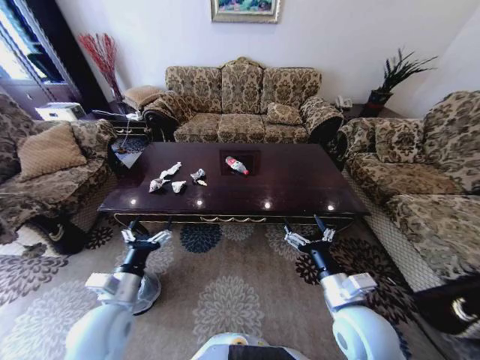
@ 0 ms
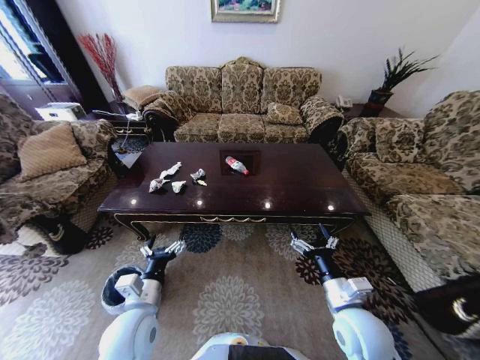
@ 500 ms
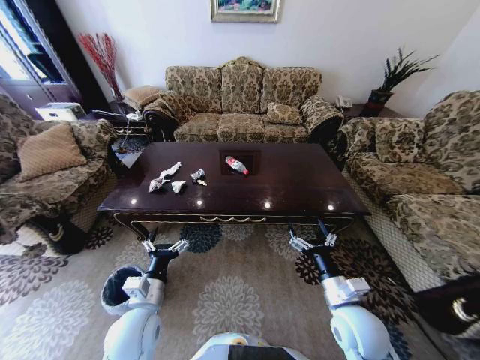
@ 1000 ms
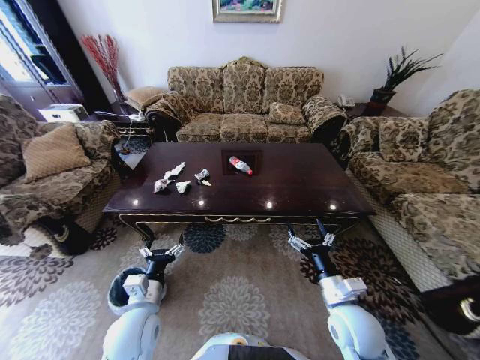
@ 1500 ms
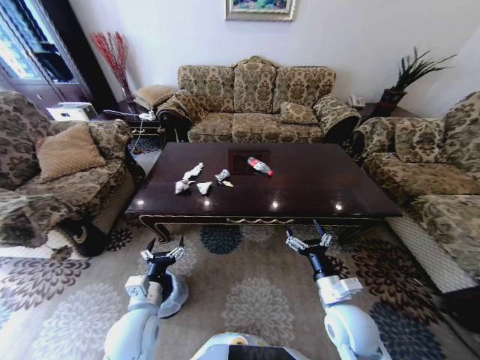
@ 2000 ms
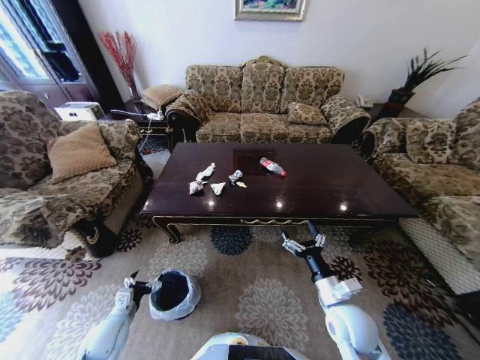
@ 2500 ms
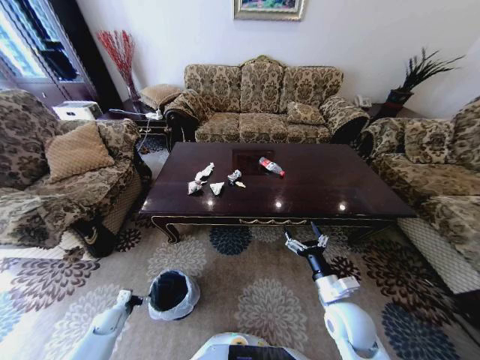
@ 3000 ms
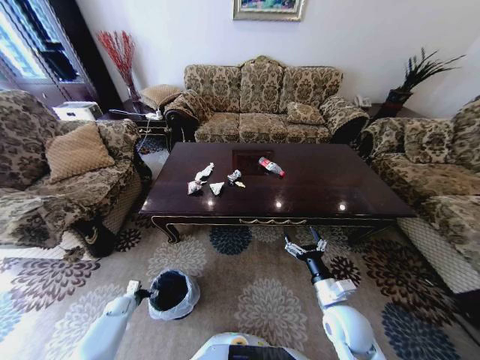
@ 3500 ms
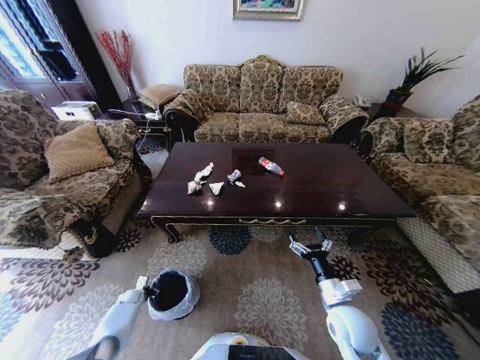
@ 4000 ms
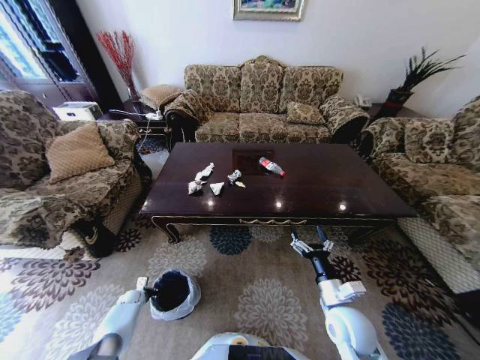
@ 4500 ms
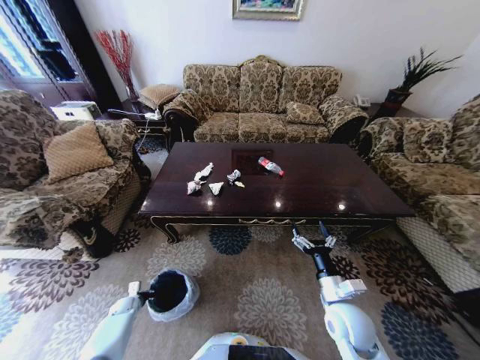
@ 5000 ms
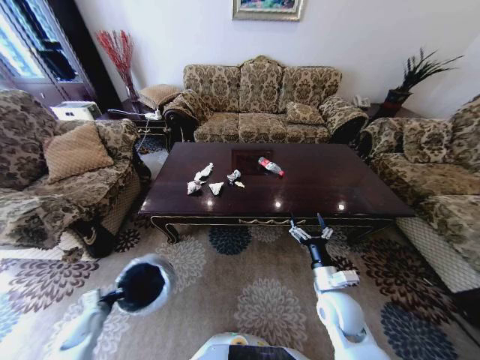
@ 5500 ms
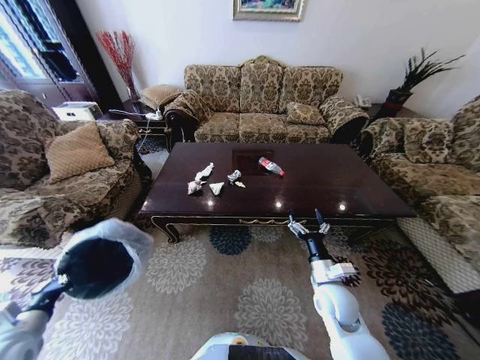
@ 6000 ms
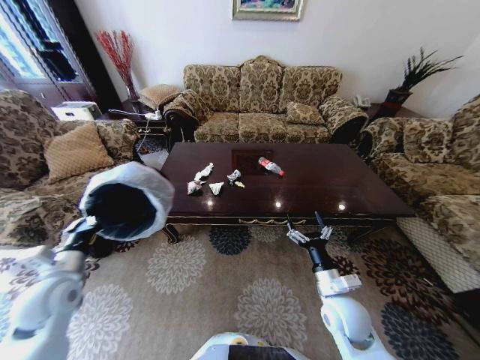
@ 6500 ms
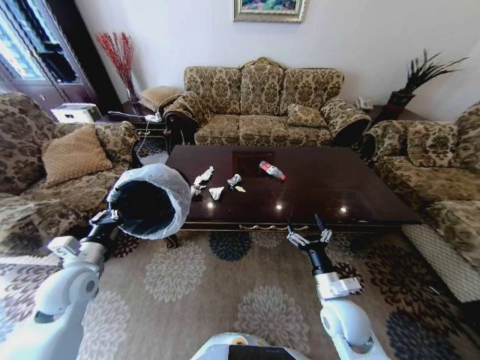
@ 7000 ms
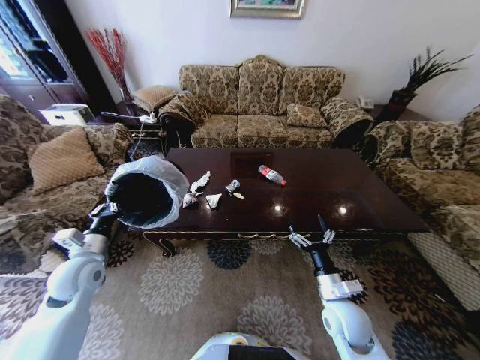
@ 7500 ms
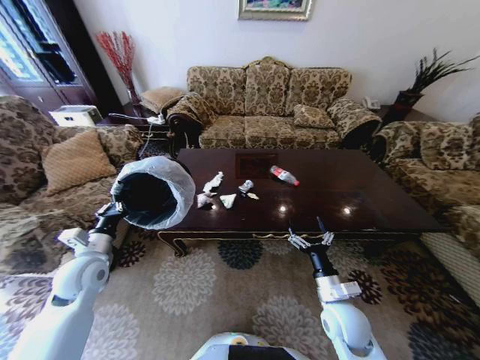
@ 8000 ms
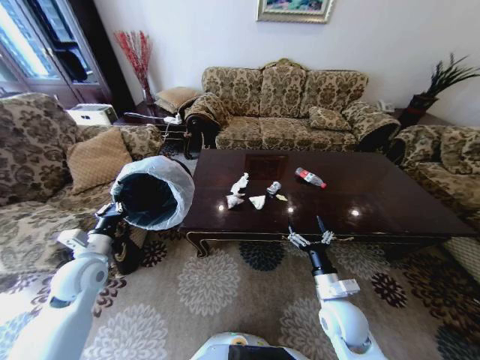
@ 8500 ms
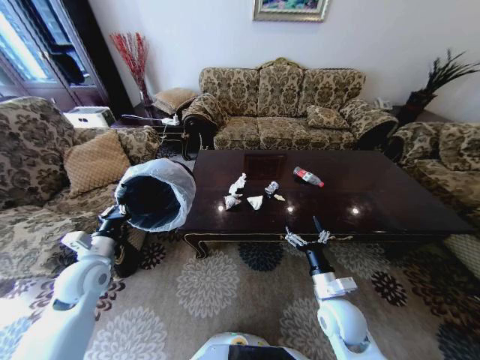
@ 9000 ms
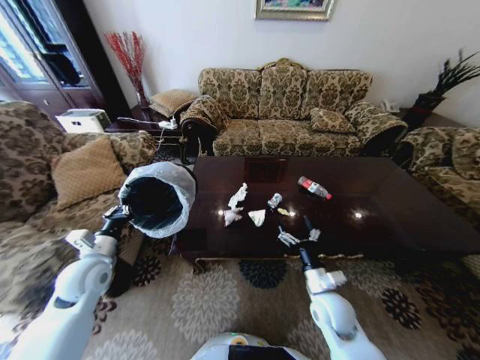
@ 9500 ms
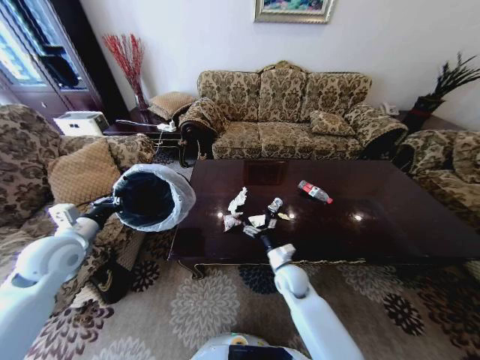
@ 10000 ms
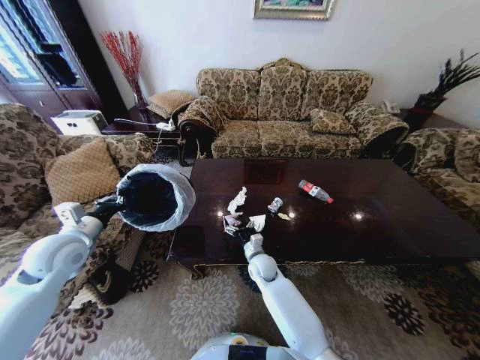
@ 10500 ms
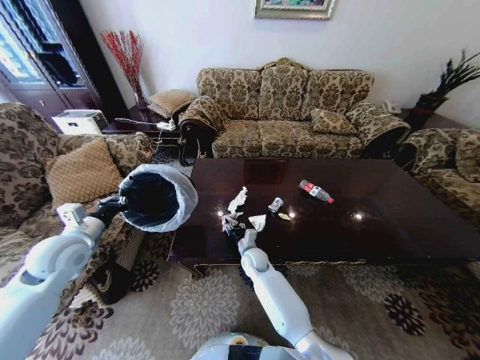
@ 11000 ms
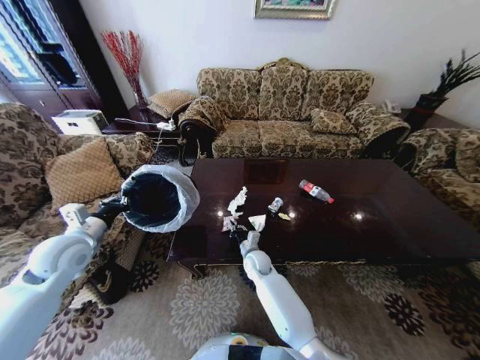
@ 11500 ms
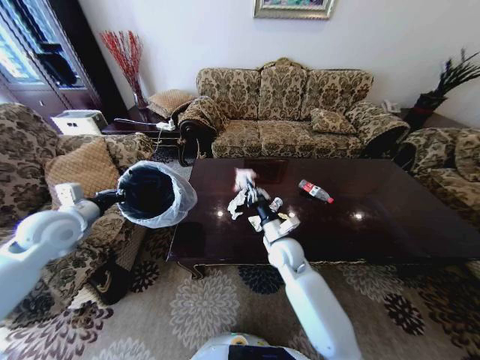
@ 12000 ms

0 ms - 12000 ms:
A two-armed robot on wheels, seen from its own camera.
Task of the whole recording: Move to the front of the table and place the trash on the table into the trash bin.
2000 ms - 4000 ms: The left gripper moves downward, to the left and forward, approximately 40 cm, and closes its fingers.
4000 ms - 6000 ms: The left gripper is displaced upward and backward by some 40 cm, and closes up. The right gripper ends up about 5 cm from where it was.
6000 ms - 8000 ms: The left gripper moves forward and to the right, about 20 cm.
8000 ms - 10000 ms: The right gripper travels forward and to the left by approximately 15 cm; the left gripper goes about 5 cm upward.
10000 ms - 12000 ms: The right gripper heads upward, covering some 10 cm, and closes up; the left gripper ends up about 5 cm from where it was.

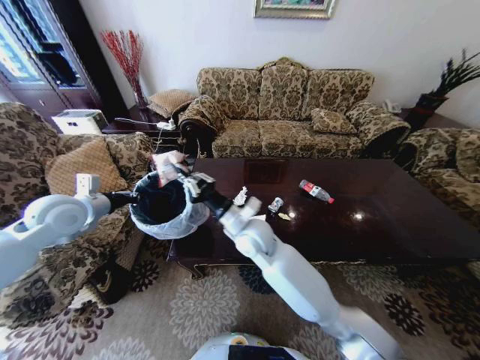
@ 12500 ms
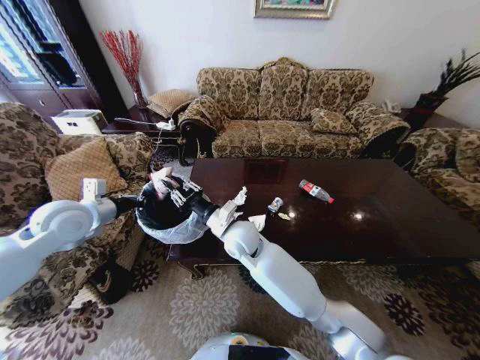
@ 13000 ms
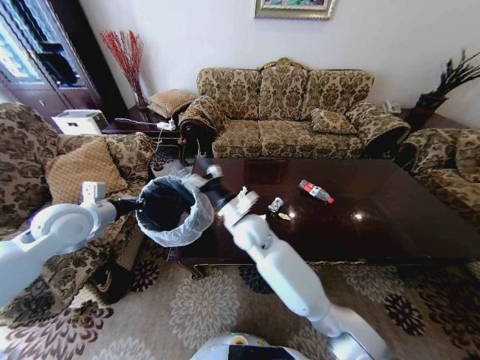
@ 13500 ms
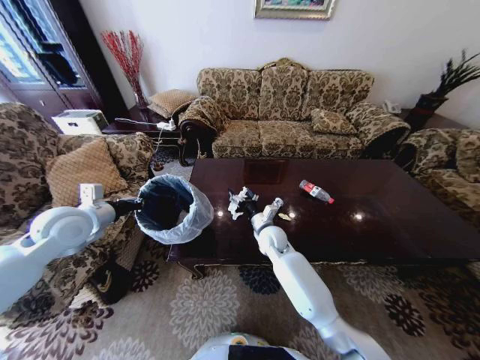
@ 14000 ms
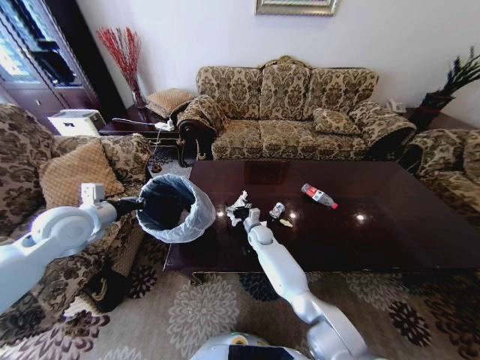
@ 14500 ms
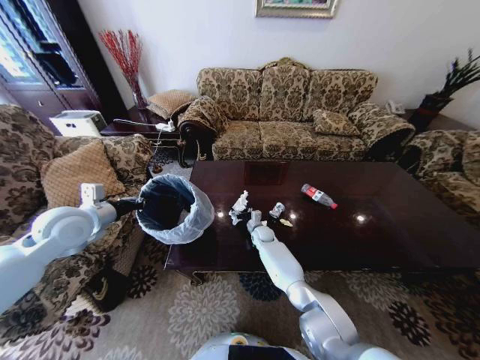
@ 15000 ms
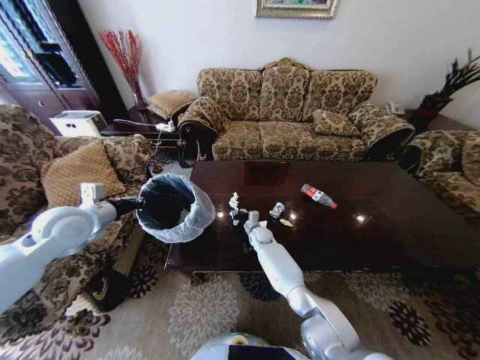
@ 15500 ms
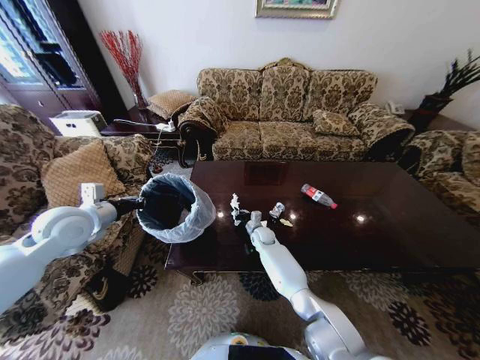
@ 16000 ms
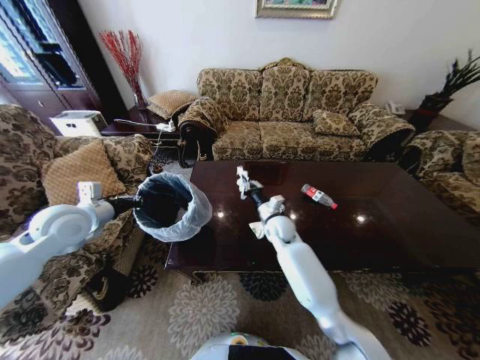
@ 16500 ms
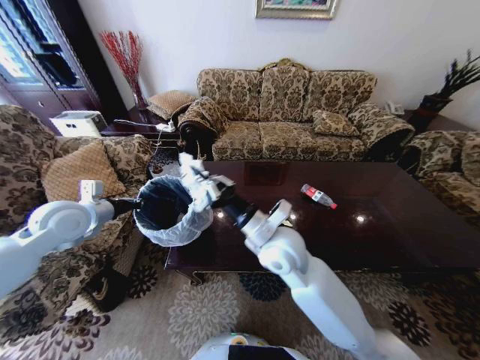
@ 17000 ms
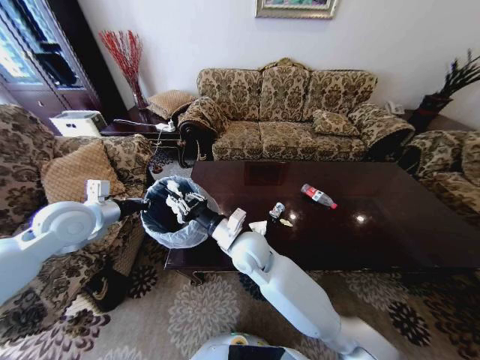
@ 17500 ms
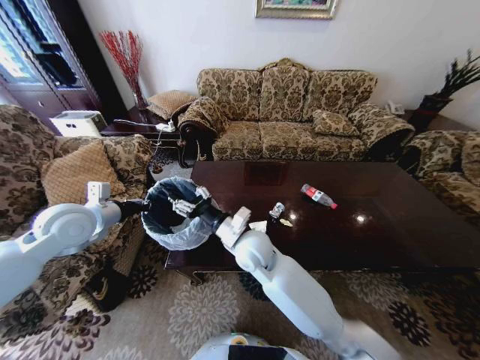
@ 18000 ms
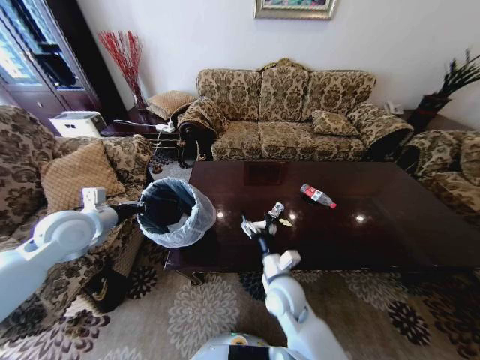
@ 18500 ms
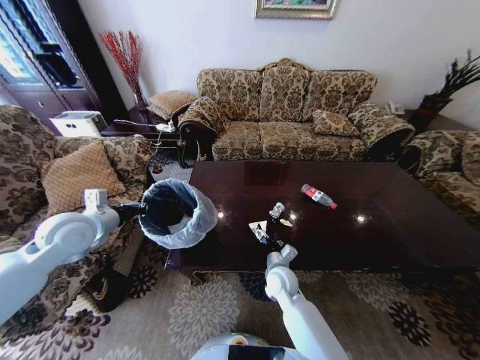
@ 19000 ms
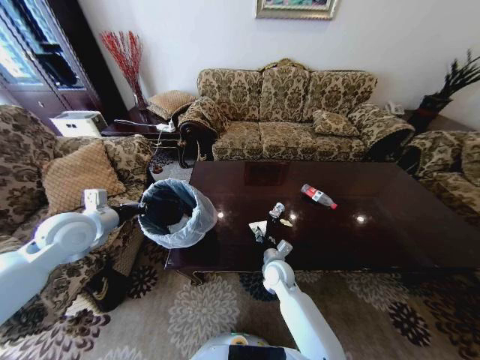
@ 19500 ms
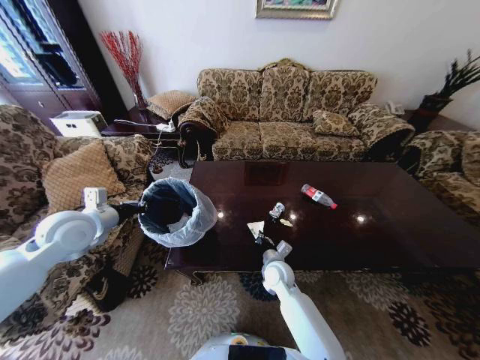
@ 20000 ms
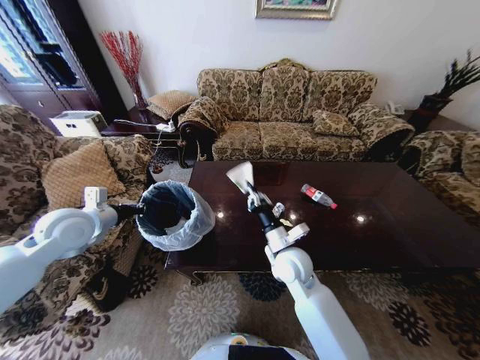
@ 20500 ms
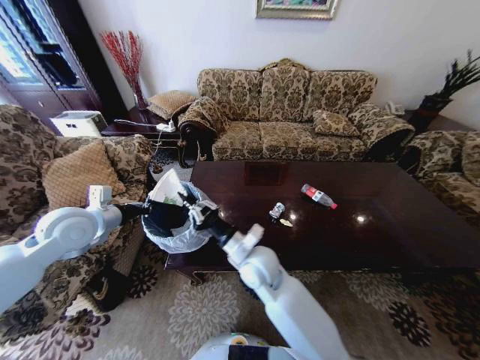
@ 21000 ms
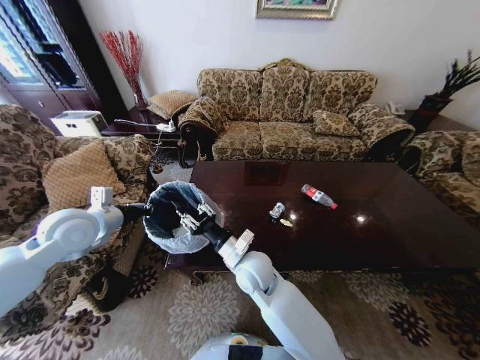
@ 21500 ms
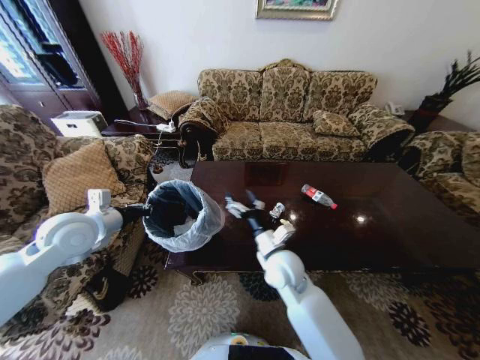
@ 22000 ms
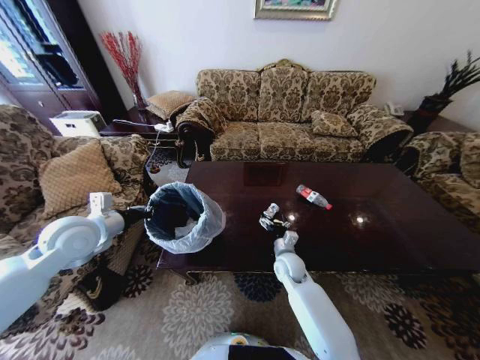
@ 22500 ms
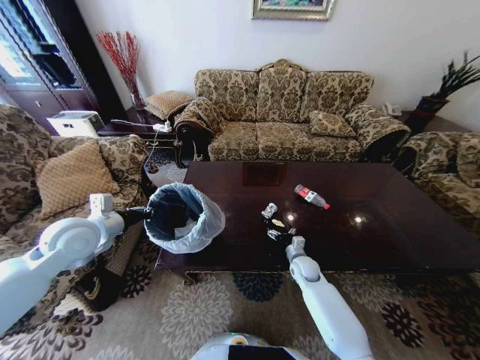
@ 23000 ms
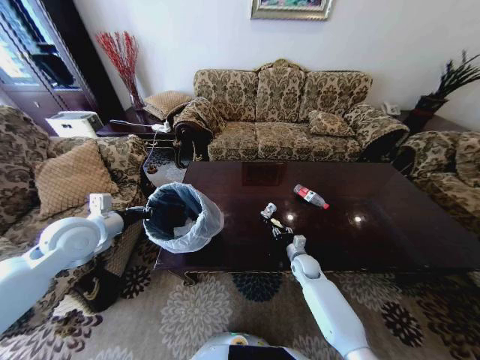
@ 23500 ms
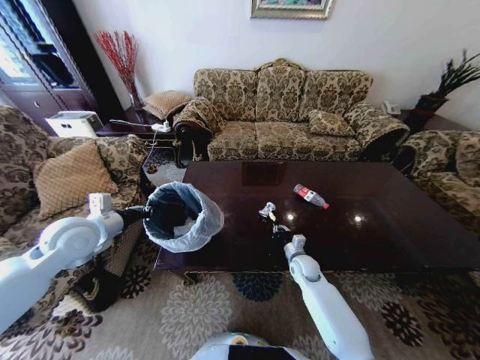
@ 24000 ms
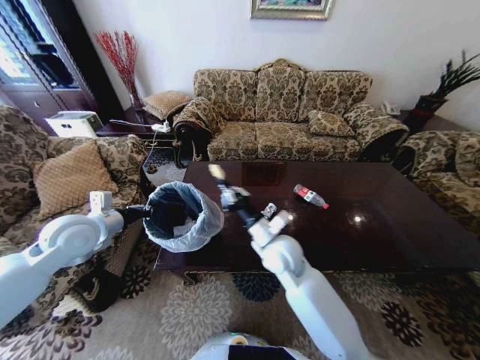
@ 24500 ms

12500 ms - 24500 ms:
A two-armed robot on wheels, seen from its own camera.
Task of the whole recording: Move to the front of the table and place the trash on the table into the trash bin.
12500 ms - 14500 ms: The right gripper goes some 25 cm downward and forward, and opens its fingers.
14500 ms - 16500 ms: The right gripper heads upward and to the right, covering about 15 cm, and closes up.
16500 ms - 18500 ms: The right gripper is displaced backward by about 20 cm, and opens up.
18500 ms - 20500 ms: The right gripper moves forward and upward, some 10 cm, and closes its fingers.
20500 ms - 22500 ms: The right gripper goes some 10 cm downward, and opens up.
22500 ms - 24500 ms: The right gripper heads upward, covering roughly 15 cm, and closes its fingers.

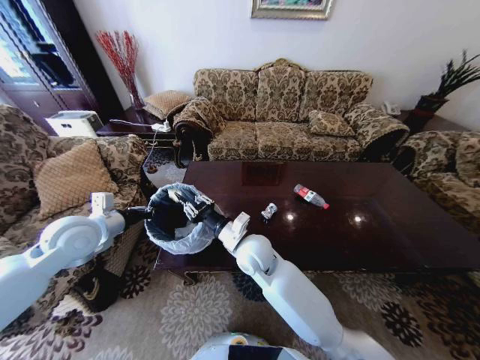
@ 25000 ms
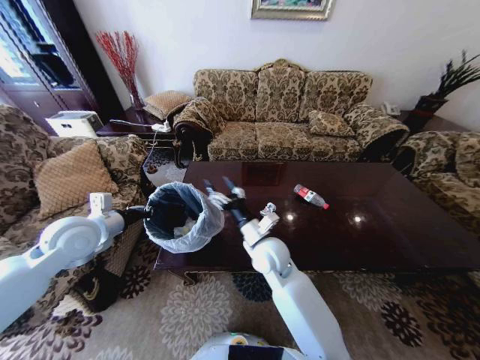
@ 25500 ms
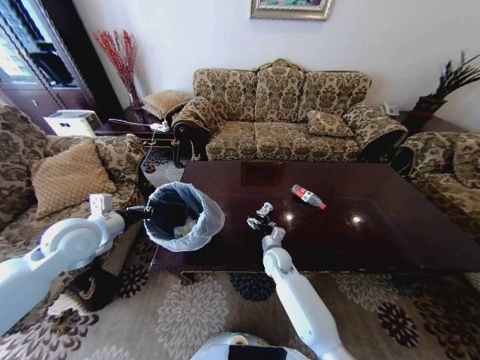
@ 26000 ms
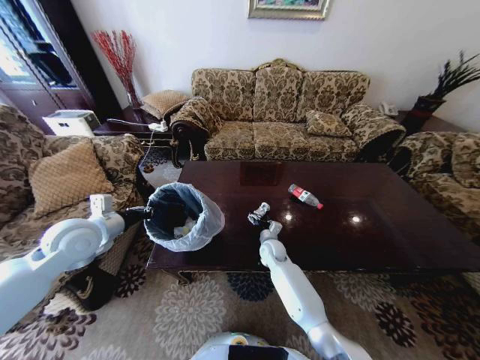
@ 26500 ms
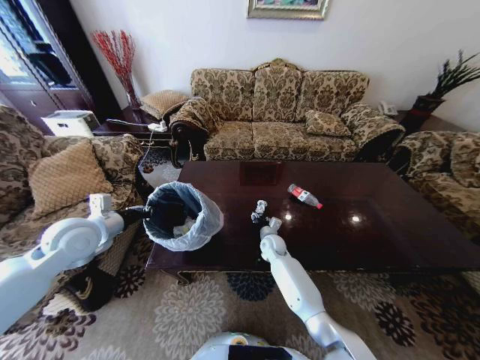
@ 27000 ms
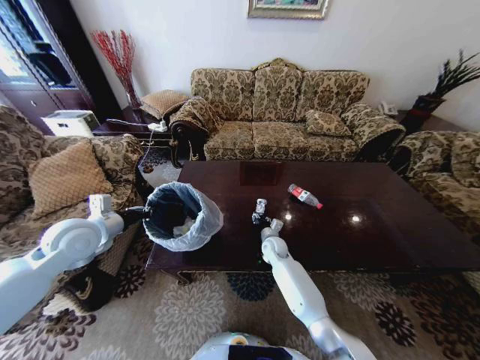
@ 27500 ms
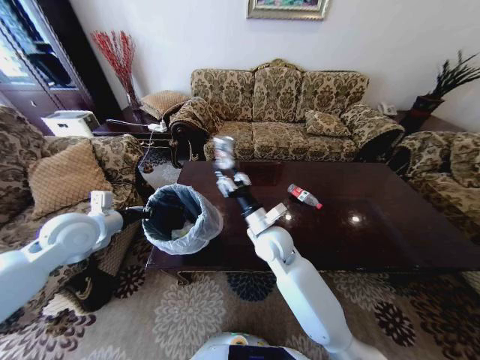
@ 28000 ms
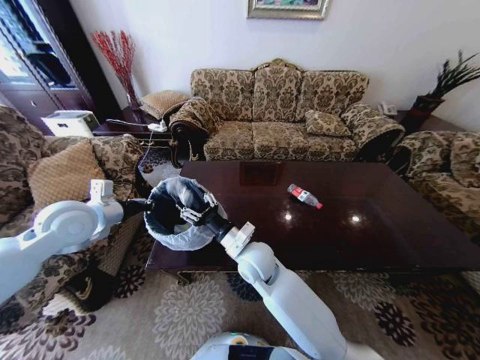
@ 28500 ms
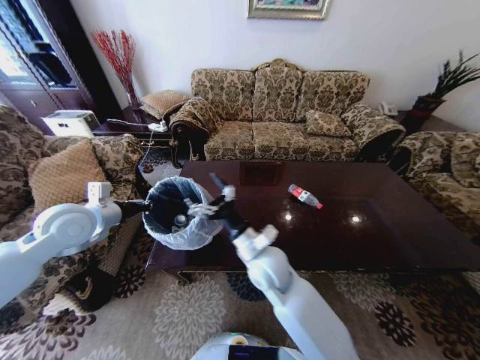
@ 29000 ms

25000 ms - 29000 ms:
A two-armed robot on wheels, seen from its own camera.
Task of the whole recording: Move to the front of the table and place the trash on the table into the trash bin.
25000 ms - 27000 ms: The right gripper moves downward, forward and to the right, some 25 cm, and opens its fingers.
27000 ms - 29000 ms: The right gripper moves upward and backward, approximately 25 cm, and opens its fingers.
